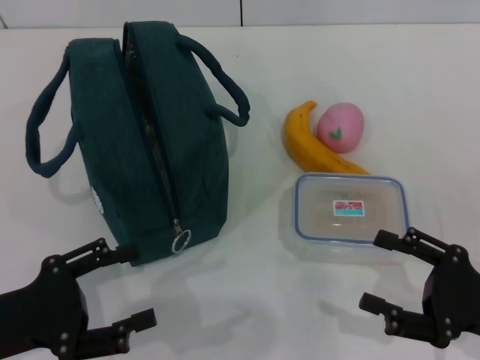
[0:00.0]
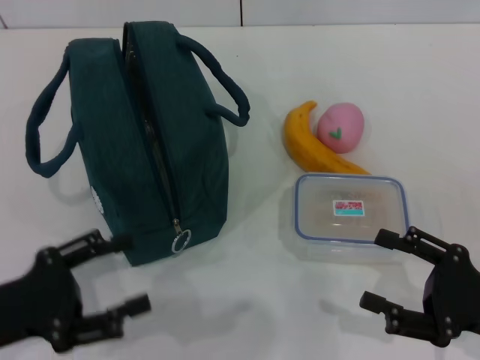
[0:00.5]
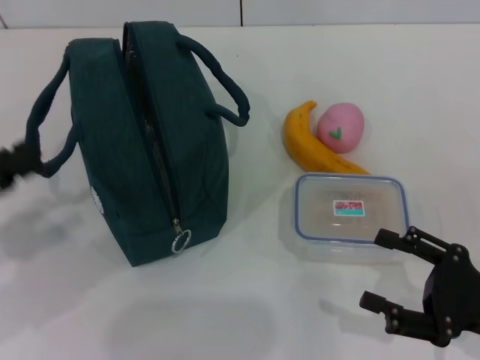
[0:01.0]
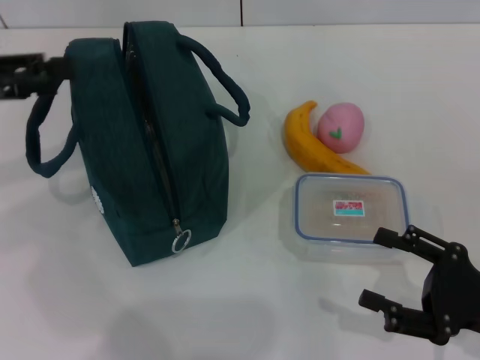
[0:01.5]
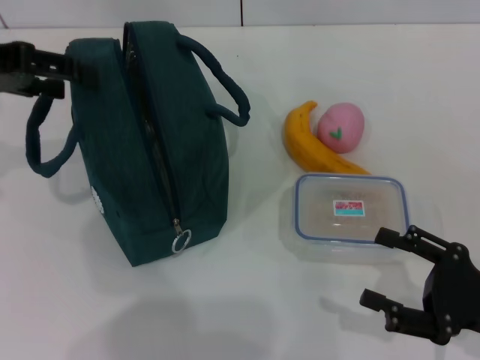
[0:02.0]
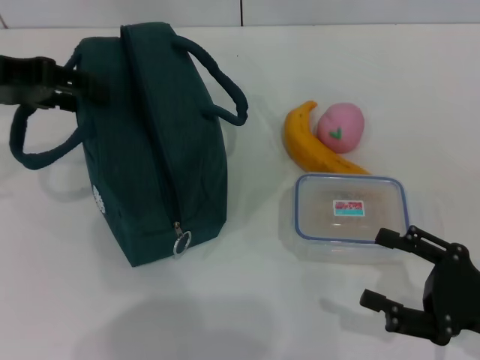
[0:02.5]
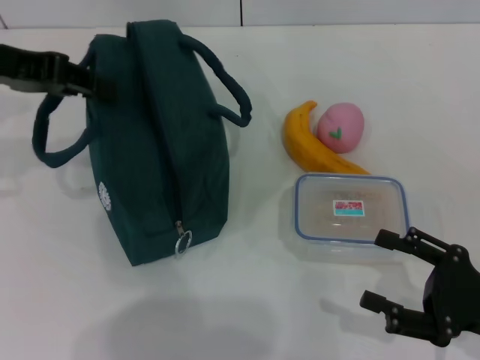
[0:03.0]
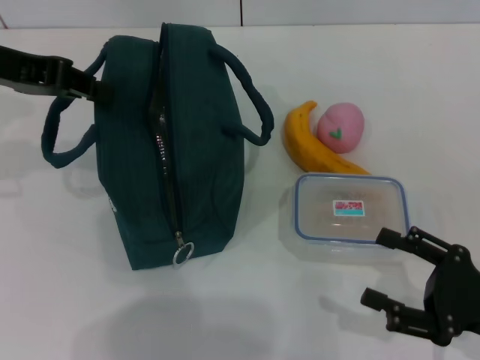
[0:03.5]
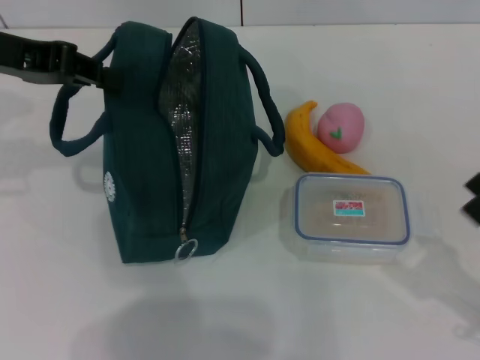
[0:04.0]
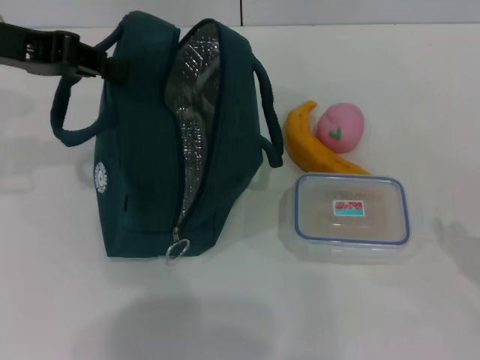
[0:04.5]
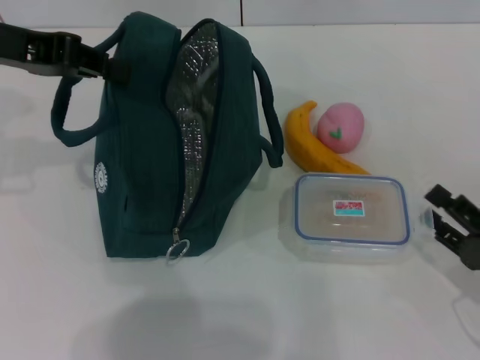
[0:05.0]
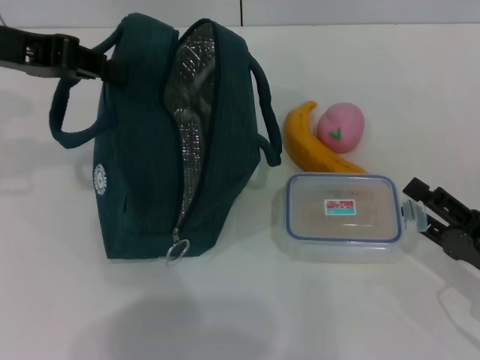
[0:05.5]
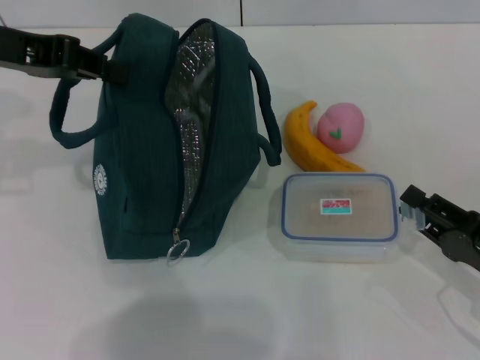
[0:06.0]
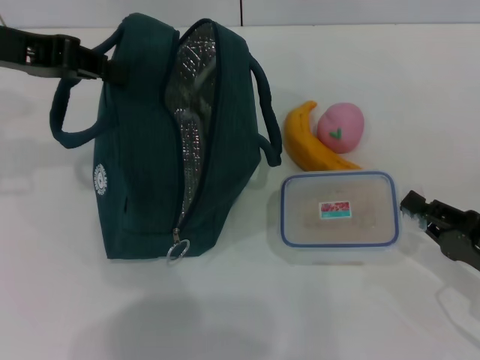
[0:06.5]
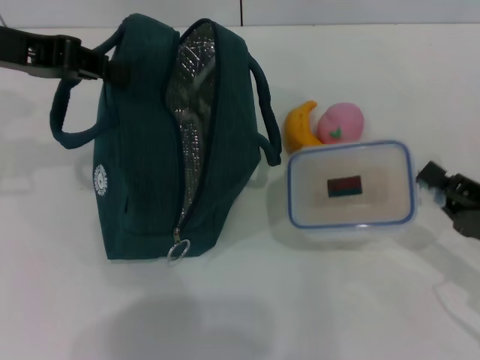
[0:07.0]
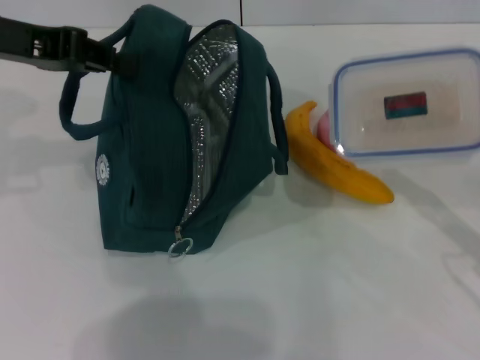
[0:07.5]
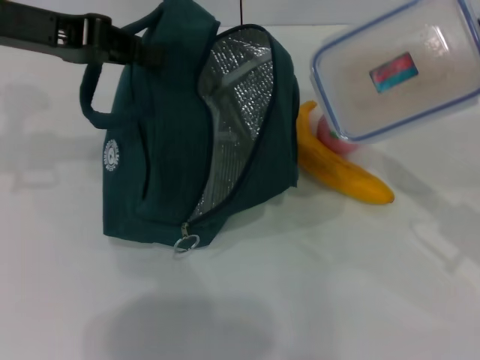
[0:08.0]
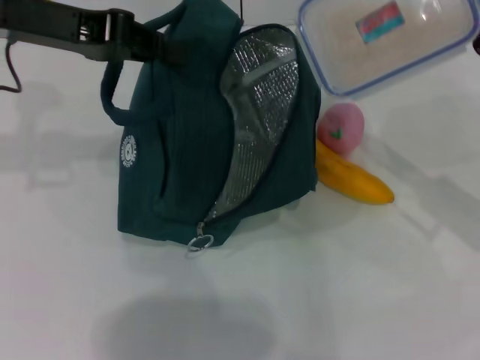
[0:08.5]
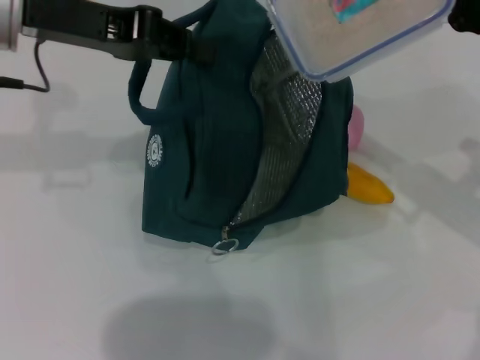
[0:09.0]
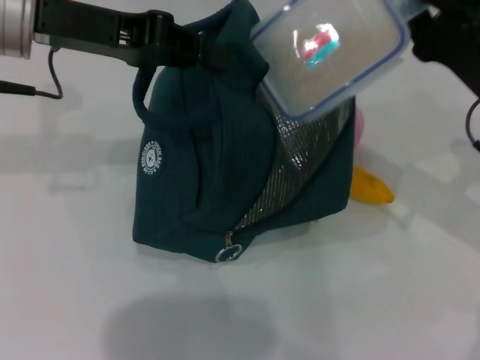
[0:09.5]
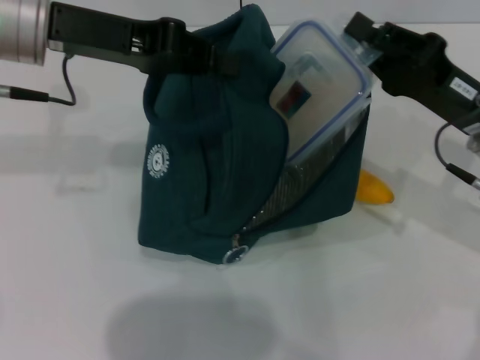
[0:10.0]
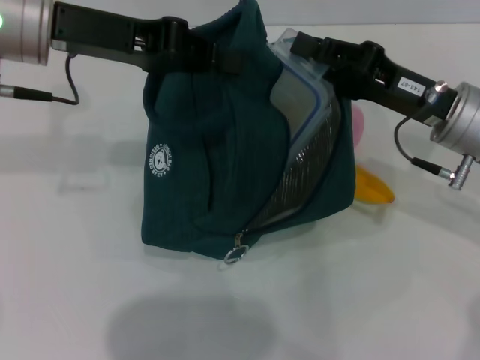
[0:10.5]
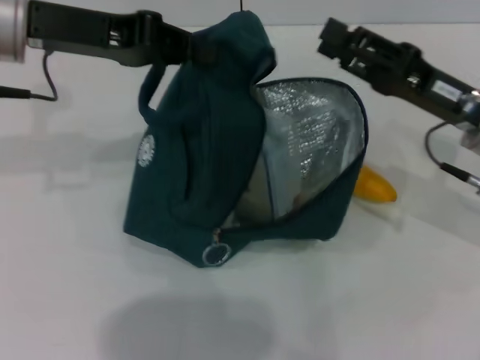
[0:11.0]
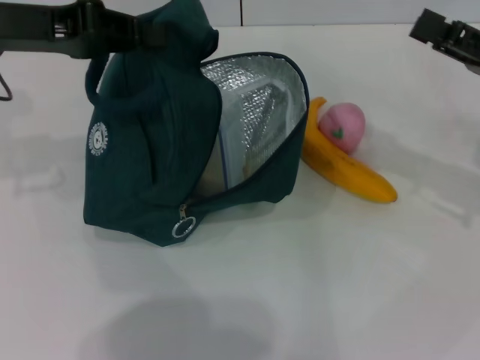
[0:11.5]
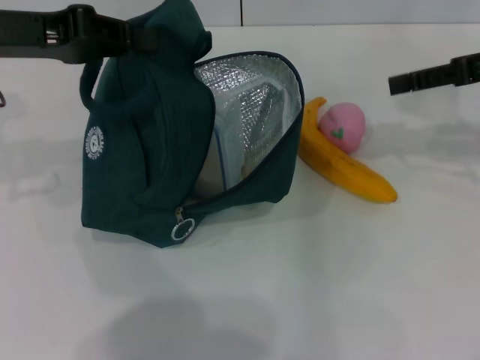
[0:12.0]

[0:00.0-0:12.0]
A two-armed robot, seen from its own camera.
Step, 0:00.0 to 0:03.0: Hold the lunch bag with your left hand.
Step, 0:03.5 to 0:06.5: Pick up the lunch box with your right hand.
Step, 0:07.0 to 0:10.5: Place the lunch box into the lunch bag with your right hand.
0:00.0 to 0:02.0: The left gripper travels forward and upward by about 25 cm.
0:02.0 to 0:04.0: The left gripper closes its fingers.
0:04.0 to 0:06.0: The right gripper shifts by roughly 5 cm.
0:06.0 to 0:08.0: The right gripper goes some 10 cm upward and forward, and closes up.
0:08.0 to 0:10.0: The right gripper moves forward and to the left, roughly 10 cm; the left gripper shifts by roughly 5 cm.
0:10.0 to 0:12.0: The right gripper is displaced upward, to the right and forward by approximately 15 cm, and opens up, while the left gripper is displaced to the left by some 5 cm.

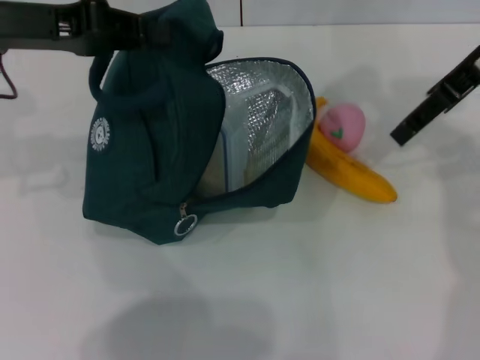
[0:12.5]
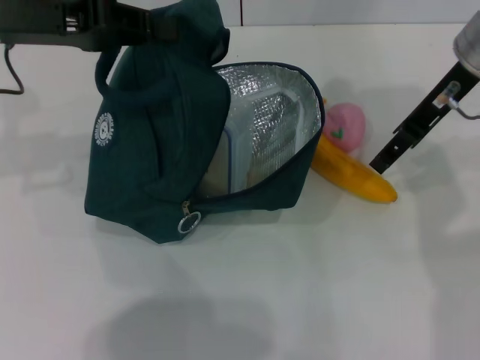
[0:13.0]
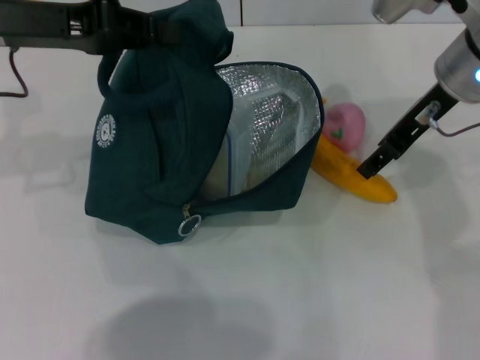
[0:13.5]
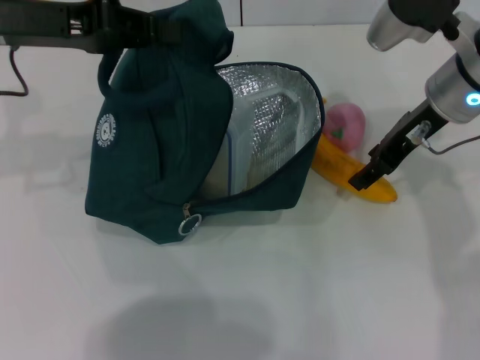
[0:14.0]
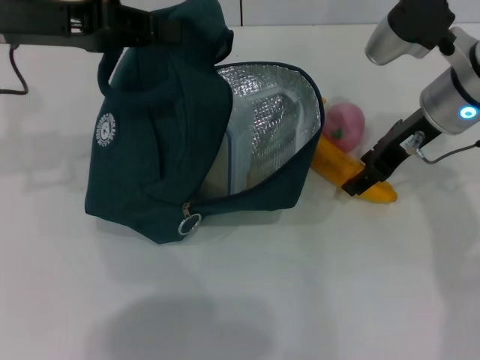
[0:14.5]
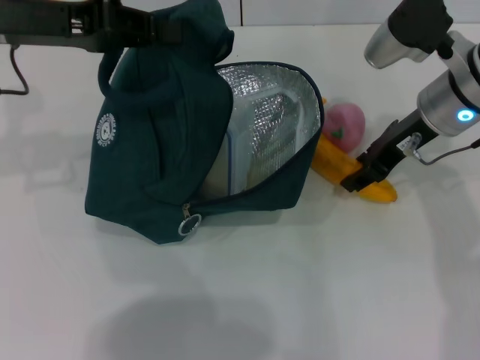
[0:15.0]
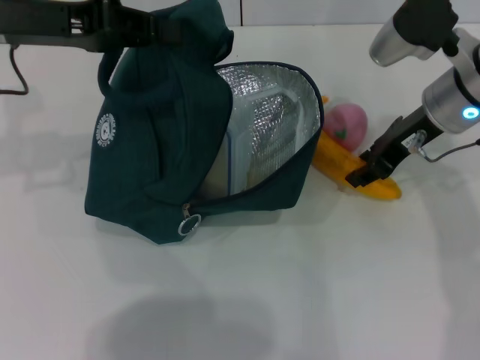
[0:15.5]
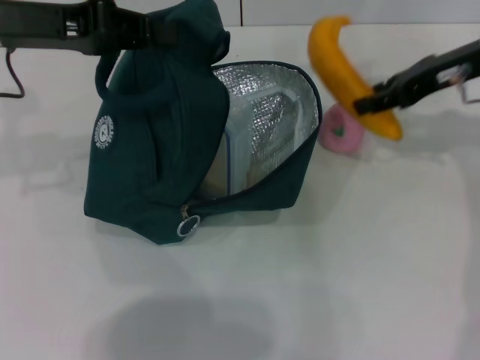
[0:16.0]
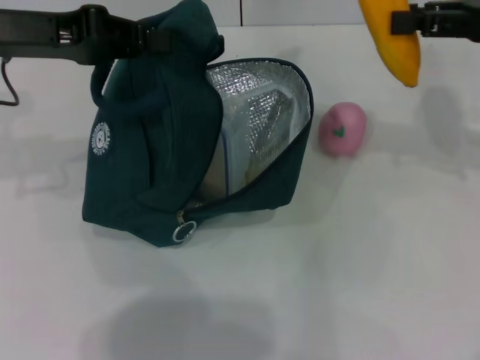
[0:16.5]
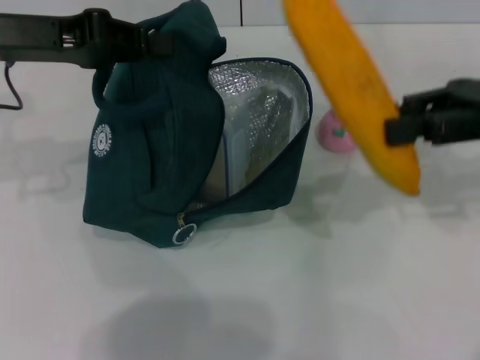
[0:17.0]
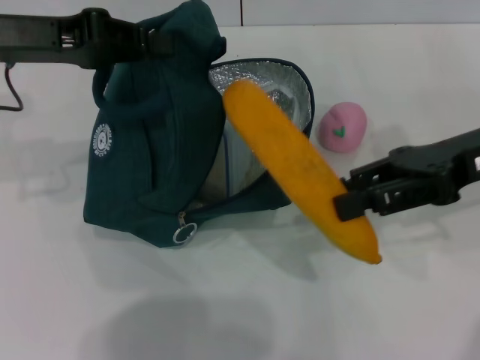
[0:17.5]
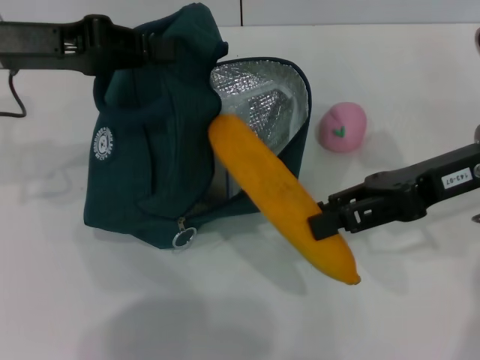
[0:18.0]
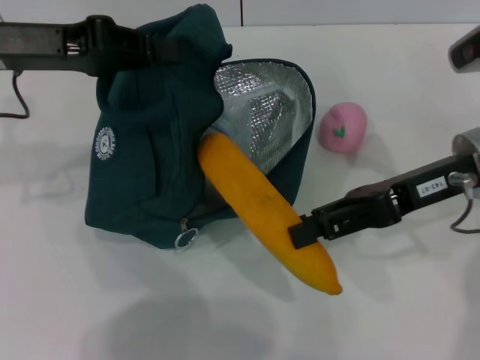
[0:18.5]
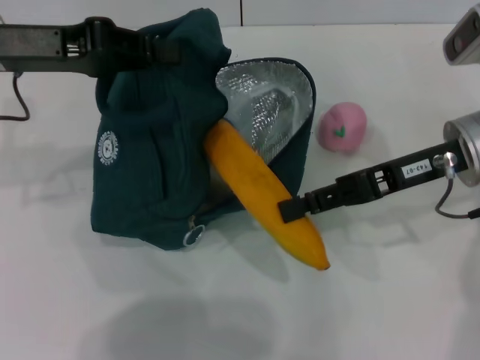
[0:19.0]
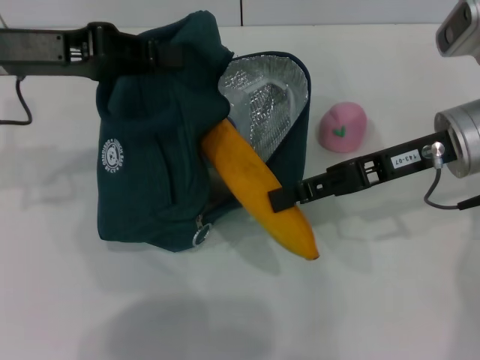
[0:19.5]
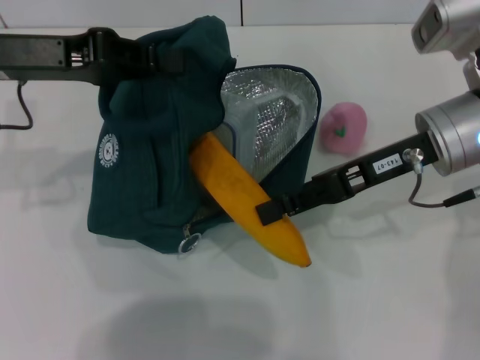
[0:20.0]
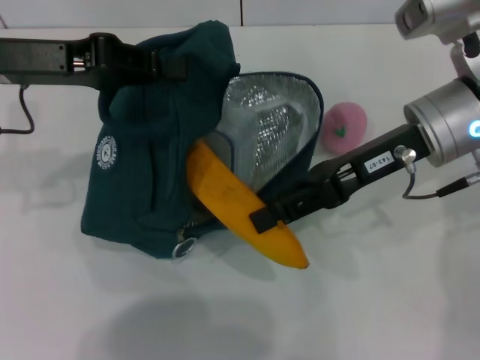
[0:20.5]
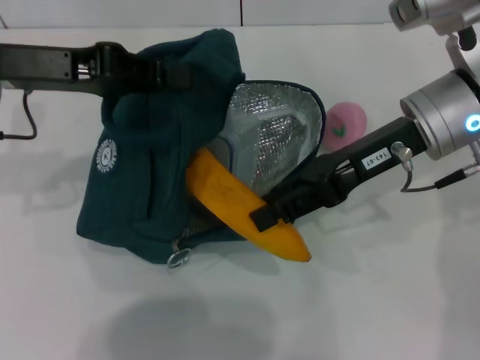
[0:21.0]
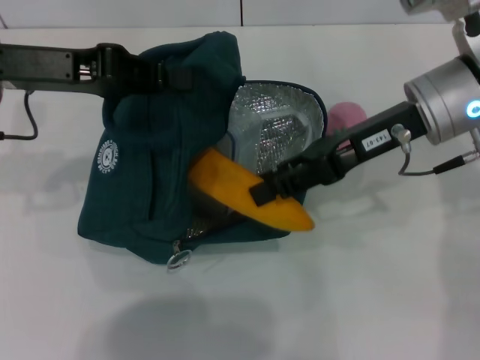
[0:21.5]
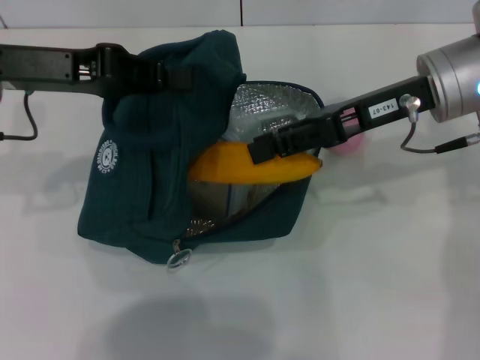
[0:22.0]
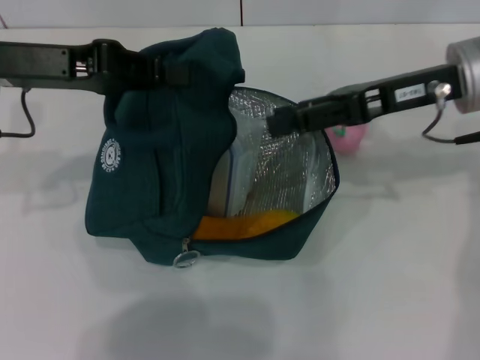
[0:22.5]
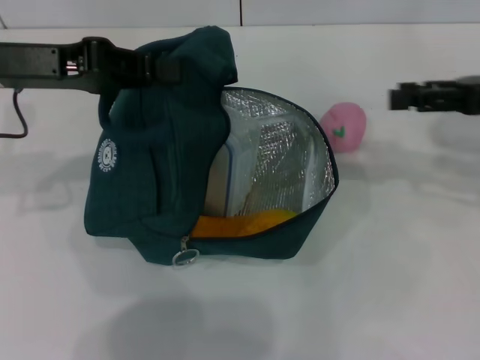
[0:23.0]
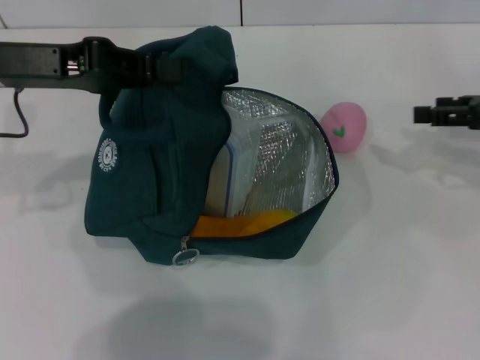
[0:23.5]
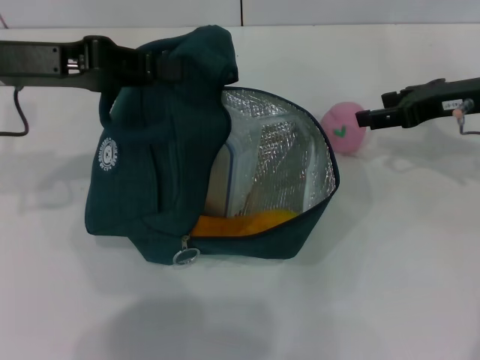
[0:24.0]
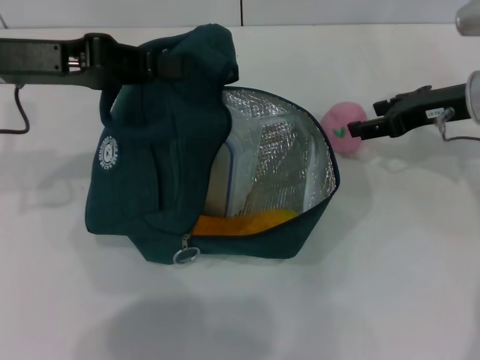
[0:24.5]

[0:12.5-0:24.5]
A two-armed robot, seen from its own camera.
Step, 0:12.5 to 0:15.0: Take the banana with your right hand.
Step, 0:15.5 to 0:22.0: Put the banana into the lunch bag with your right hand.
0:12.5 to 0:14.5: The right gripper heads downward, covering some 10 cm.
0:14.5 to 0:16.5: The right gripper travels to the right and upward by some 15 cm.
0:16.5 to 0:18.5: The right gripper heads to the left and downward, covering roughly 10 cm.
0:18.5 to 0:20.5: The right gripper ends up some 5 cm from where it was.
0:22.5 to 0:24.5: The right gripper is displaced downward by some 5 cm, and travels to the right and back again, roughly 15 cm each way.

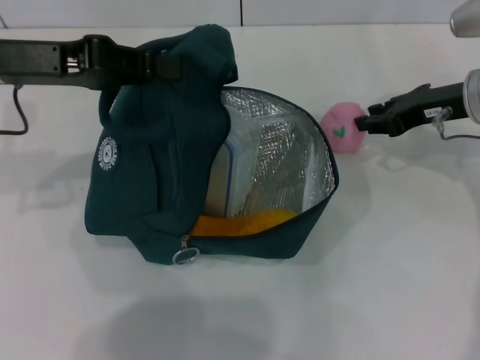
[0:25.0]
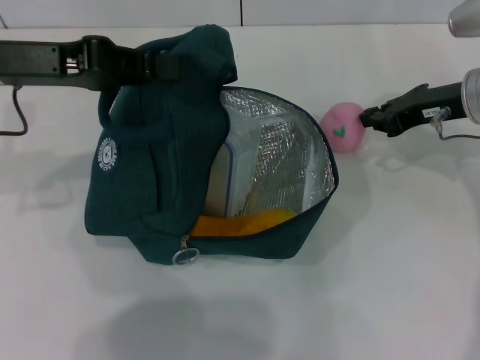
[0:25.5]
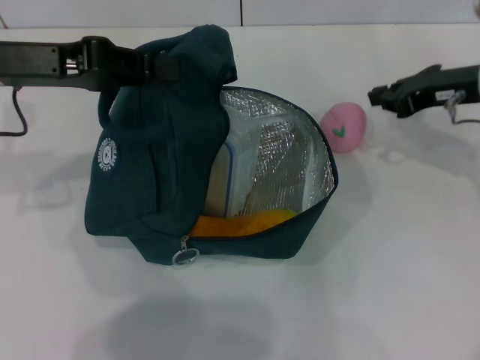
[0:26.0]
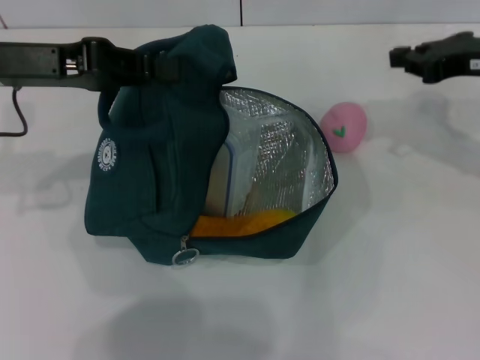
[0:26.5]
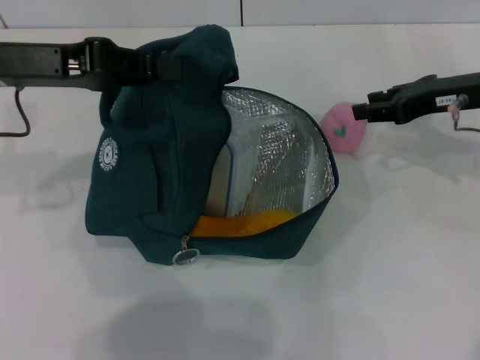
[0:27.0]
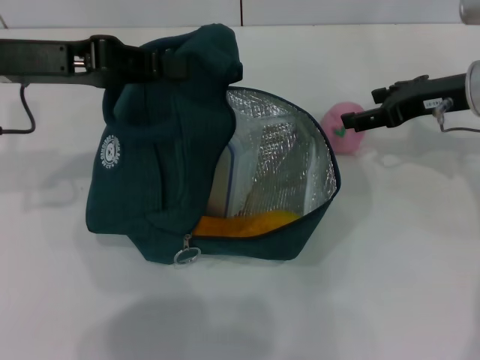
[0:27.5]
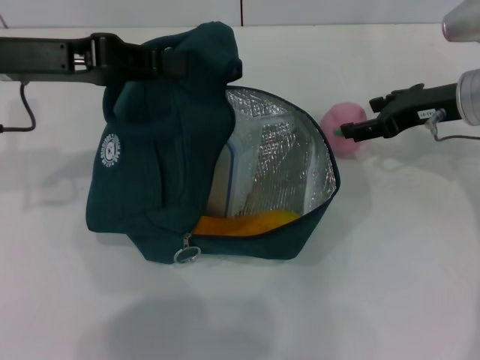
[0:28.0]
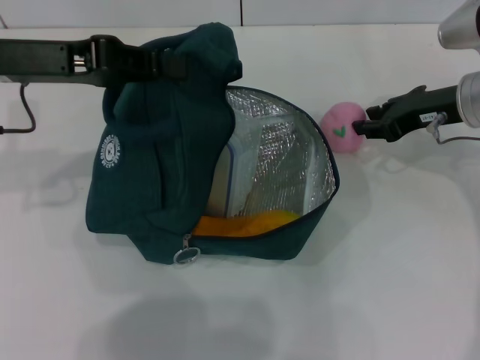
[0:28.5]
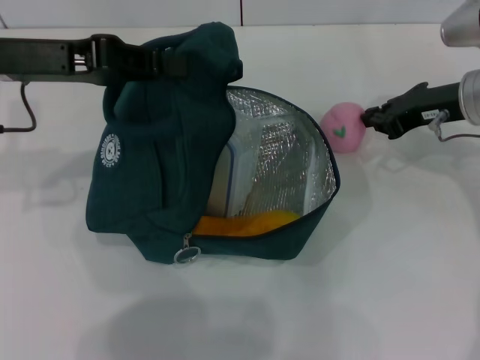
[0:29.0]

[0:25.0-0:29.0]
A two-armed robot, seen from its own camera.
0:25.0 to 0:27.0: The right gripper closes.
0:27.0 to 0:29.0: The right gripper opens, then closes once more.
